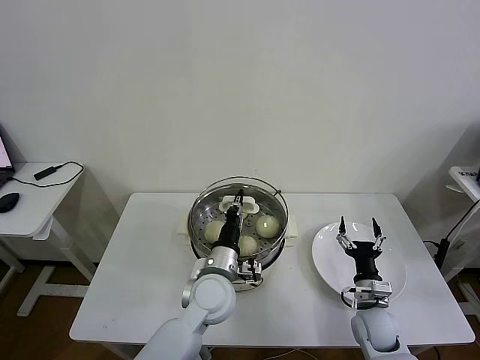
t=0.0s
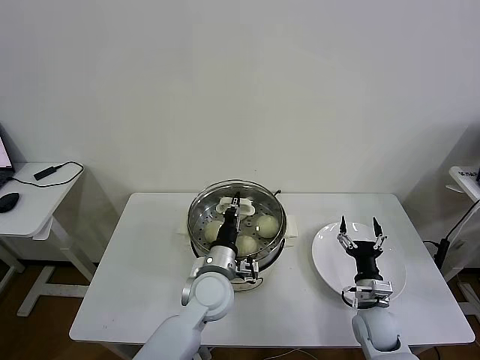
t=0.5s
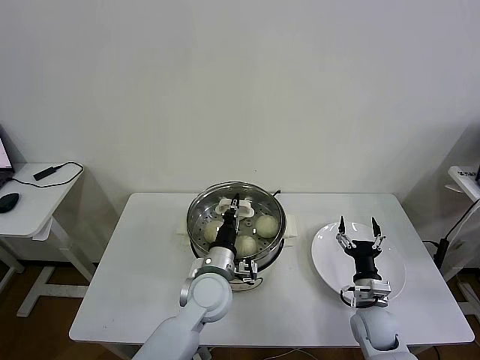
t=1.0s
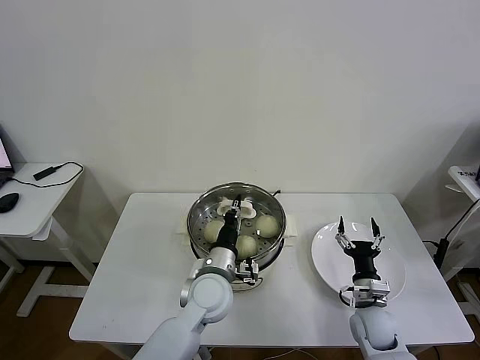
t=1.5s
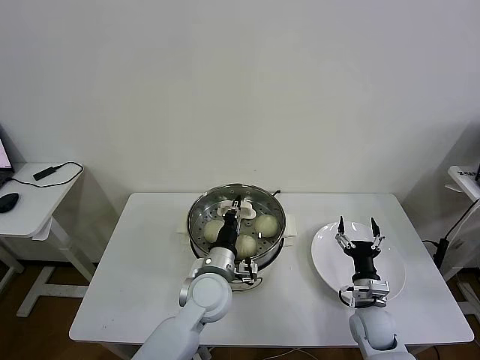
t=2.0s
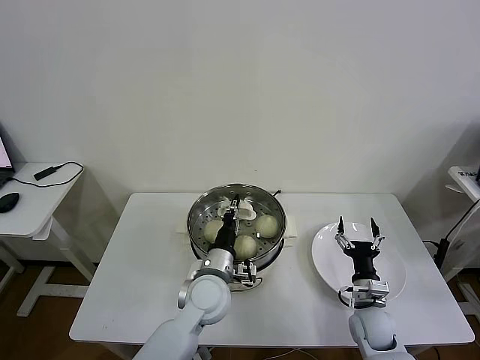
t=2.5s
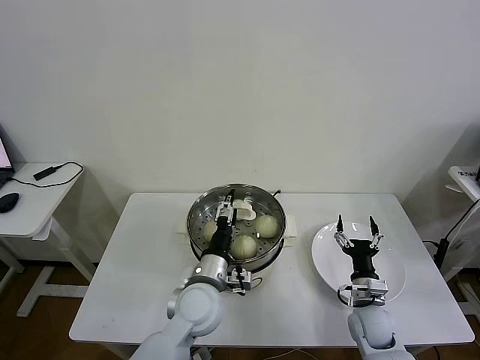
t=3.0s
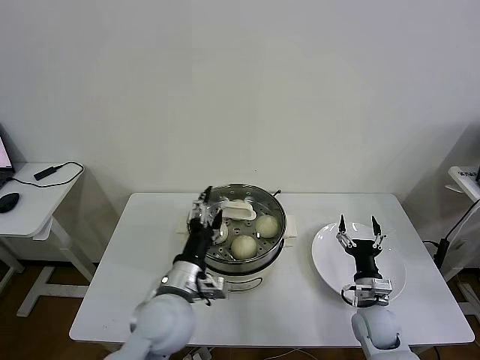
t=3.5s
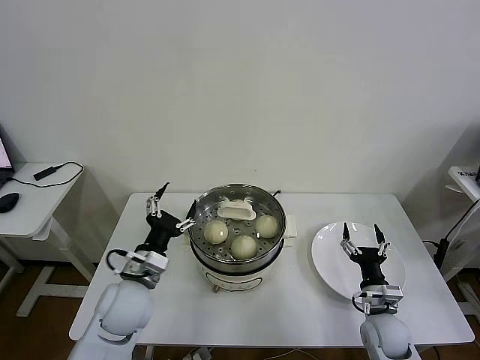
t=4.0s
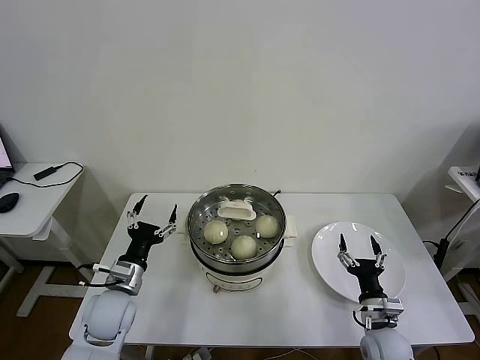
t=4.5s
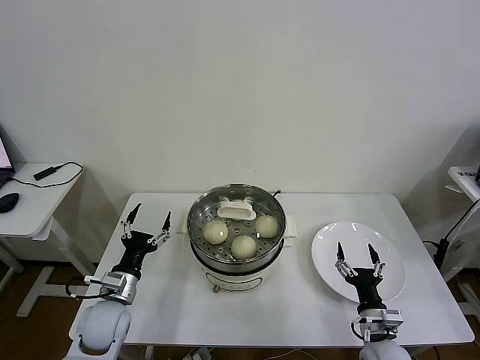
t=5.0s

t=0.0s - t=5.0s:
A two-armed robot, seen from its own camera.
Task of the whole recording: take steamed baozi put them in steamer then cover it.
Step, t=0.0s - t=2.5s: Place the pot lid on the steamer with left gripper.
t=0.0s - t=2.5s: The grippers move only a little.
t=2.5s - t=5.0s: The right gripper shifts approximately 5 cm backward. Meanwhile the left gripper shifts roughly 20 cm to the left, and opens.

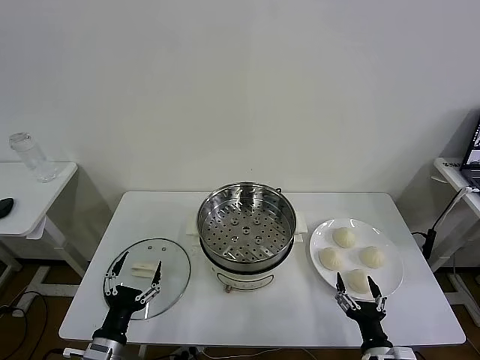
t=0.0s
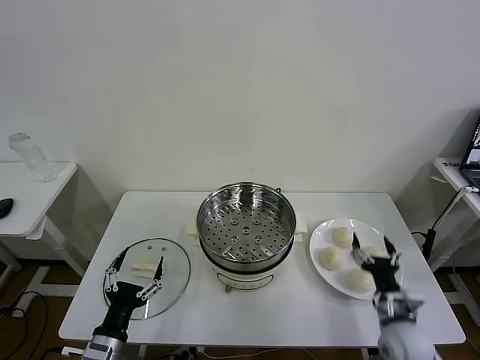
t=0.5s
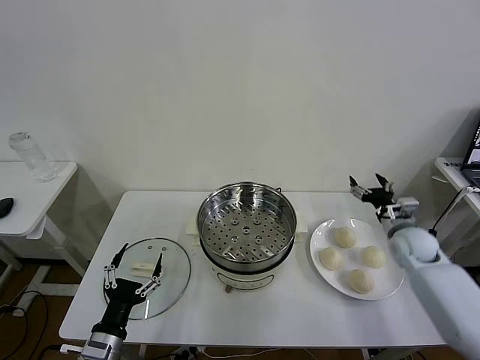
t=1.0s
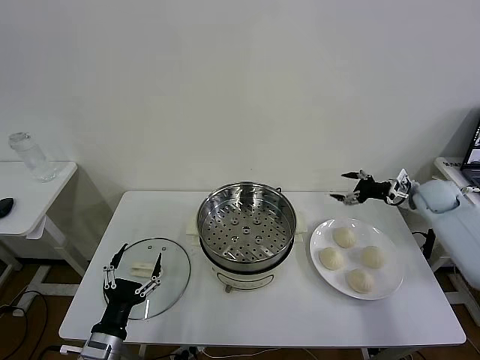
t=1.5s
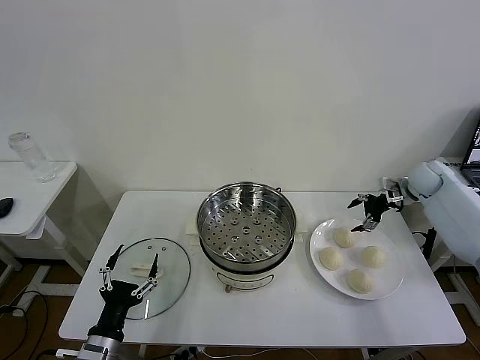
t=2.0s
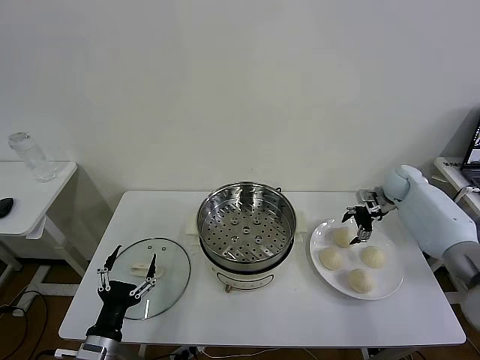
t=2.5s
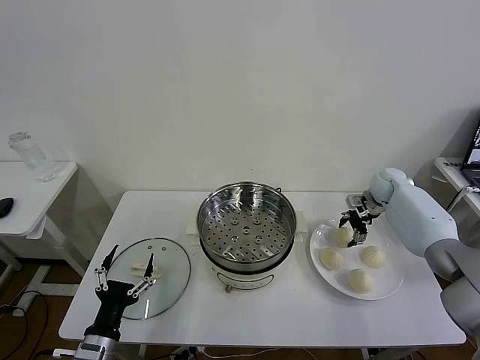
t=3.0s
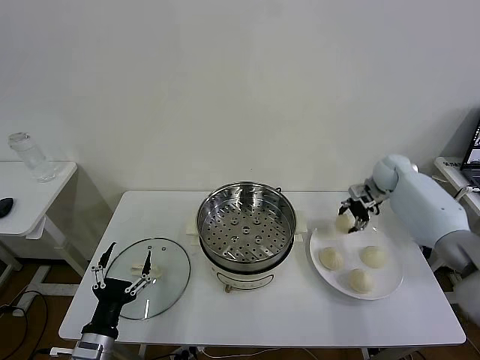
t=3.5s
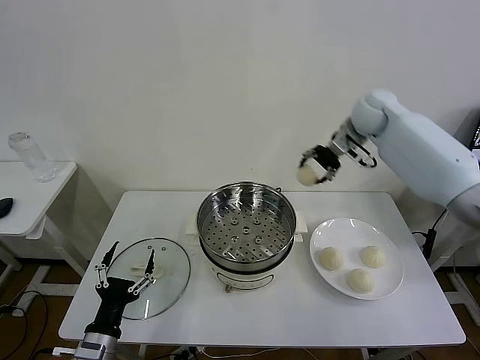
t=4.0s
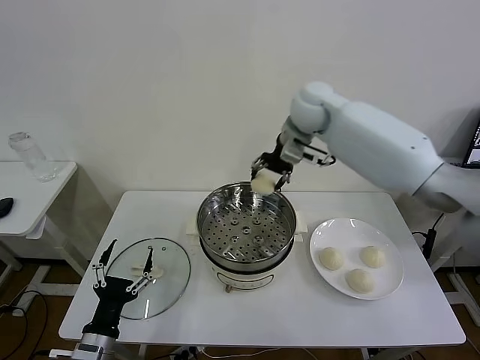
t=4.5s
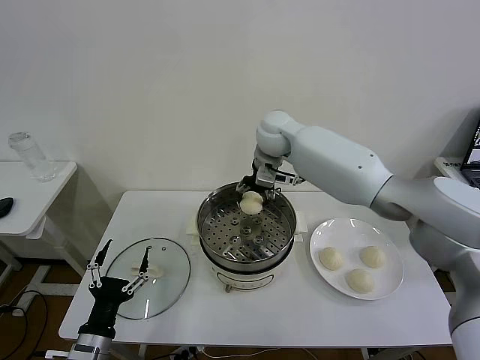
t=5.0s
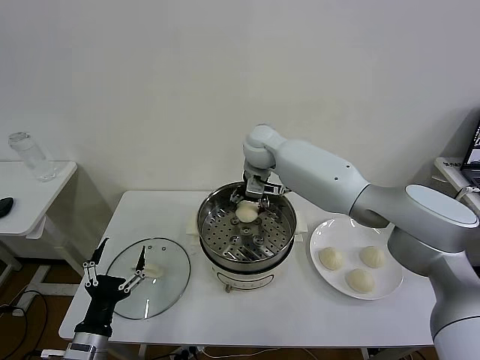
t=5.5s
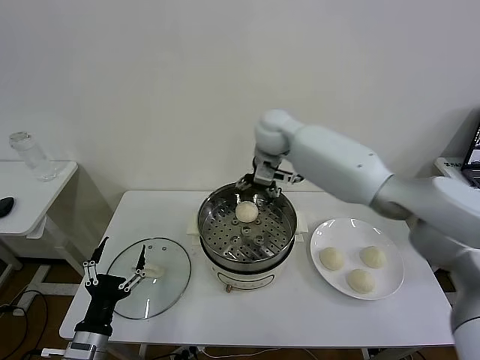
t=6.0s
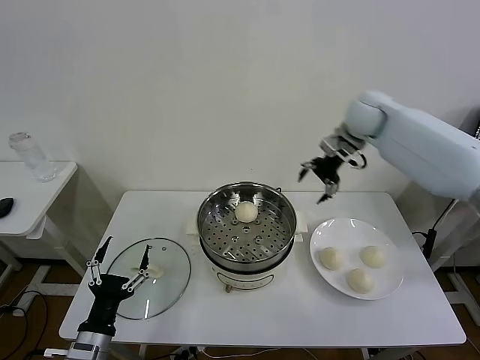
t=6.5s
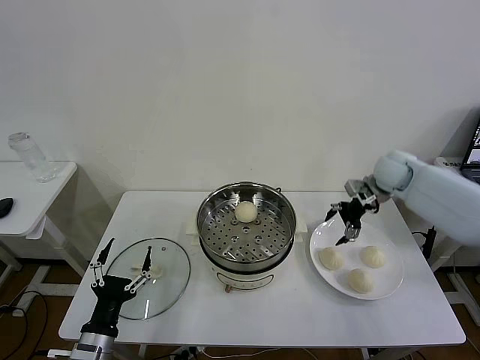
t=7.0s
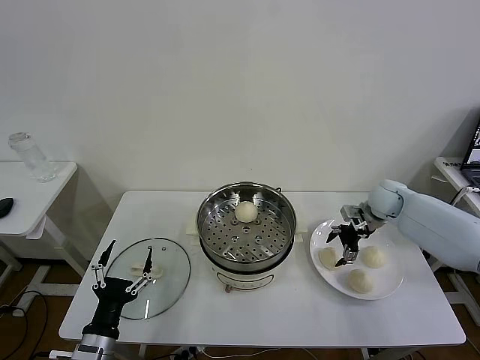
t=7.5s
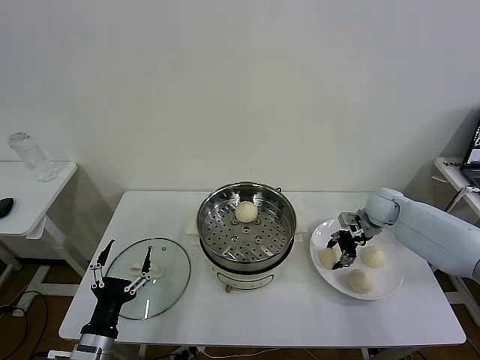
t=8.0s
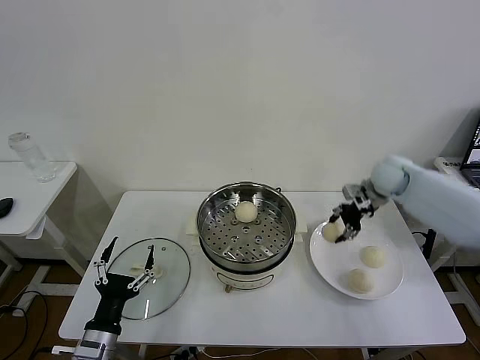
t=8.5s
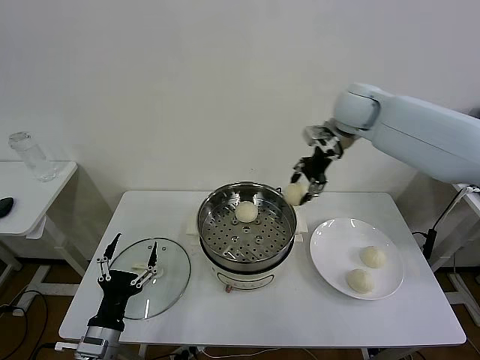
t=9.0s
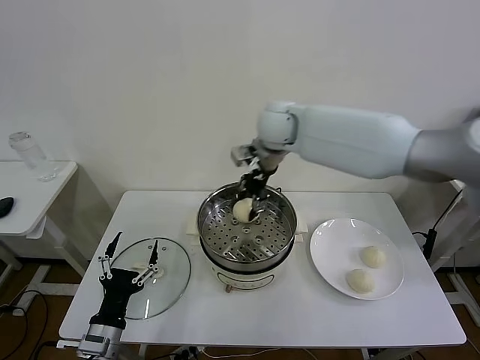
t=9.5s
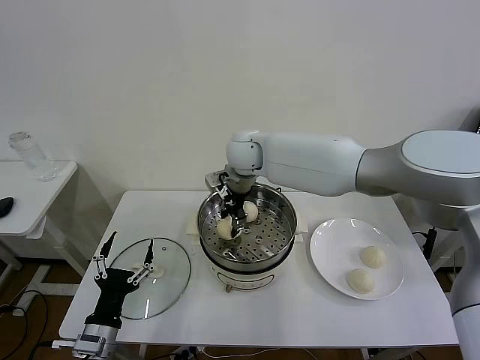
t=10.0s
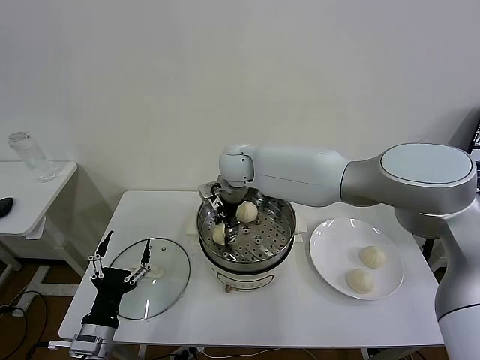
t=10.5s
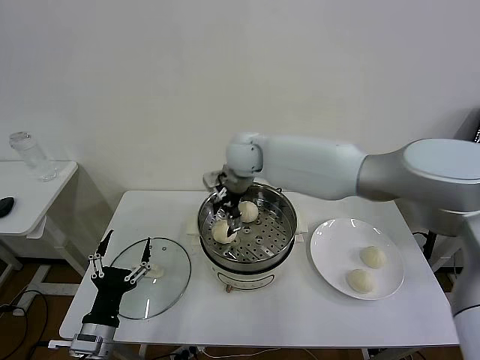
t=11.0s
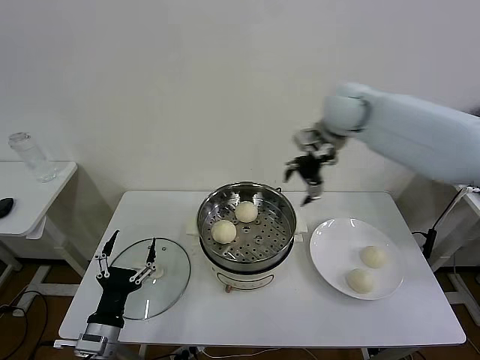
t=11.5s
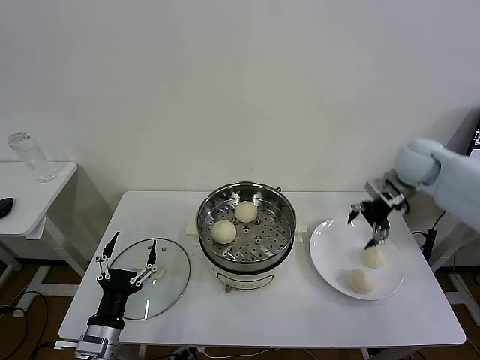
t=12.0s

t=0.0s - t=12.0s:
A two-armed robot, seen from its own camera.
Task of the whole recording: take steamed baozi put them in steamer then cover it.
Step, t=0.0s - t=3.0s: Grasp the baozi in the plate with right gripper.
Step, t=3.5s - t=5.5s: Place the baozi on the steamer with right gripper.
Step, t=6.0s - t=8.0s: Grasp the baozi in the plate with right gripper.
Step, t=8.5s - t=10.5s: Place the baozi on the steamer with right gripper.
t=2.0s - t=4.0s: The right gripper heads to the left and upward, covering roughly 30 cm, and closes up.
t=4.0s - t=6.0s: The right gripper goes some 15 cm to the left, and opens.
t=6.0s - t=8.0s: The right gripper shifts some 35 cm to the right and downward, and closes up.
t=8.0s - t=10.0s: The right gripper goes approximately 40 cm to the left and upward.
t=10.0s - t=12.0s: The right gripper heads to the right, covering approximately 40 cm, and opens up.

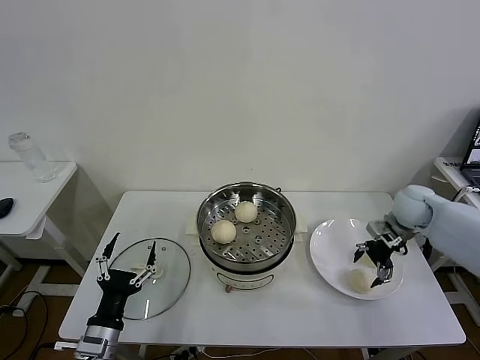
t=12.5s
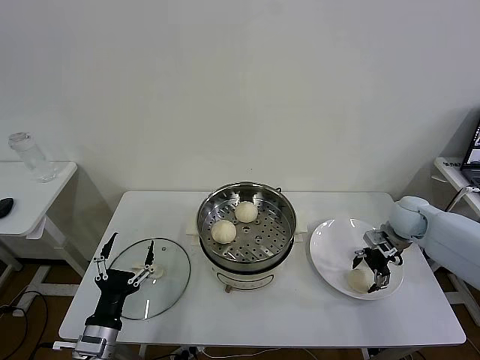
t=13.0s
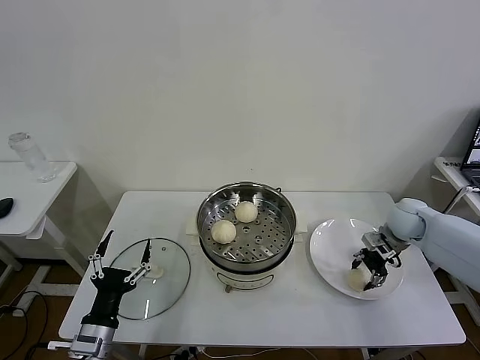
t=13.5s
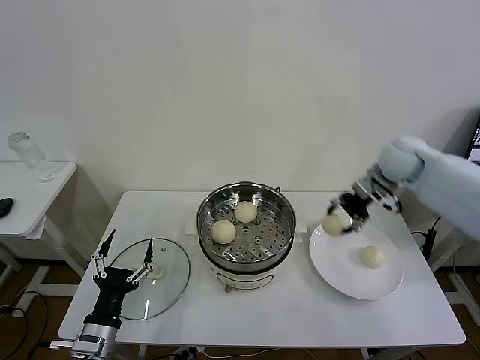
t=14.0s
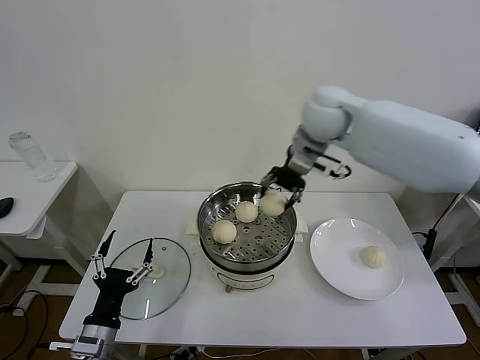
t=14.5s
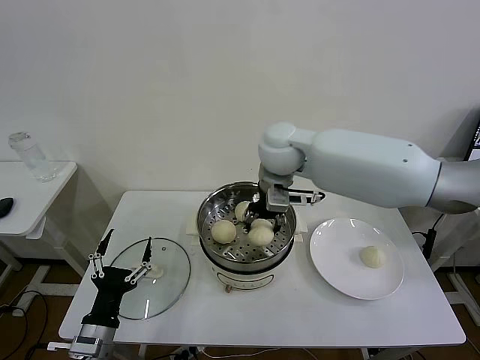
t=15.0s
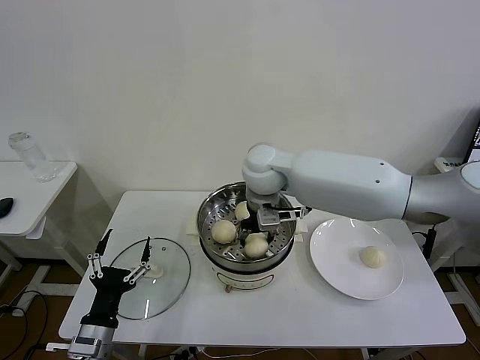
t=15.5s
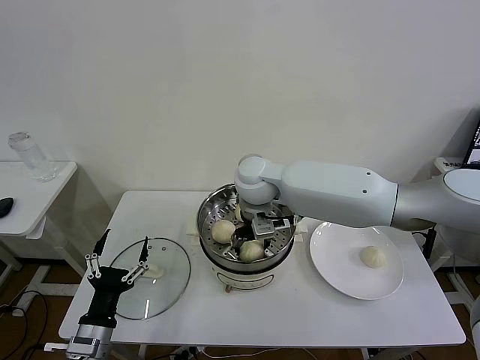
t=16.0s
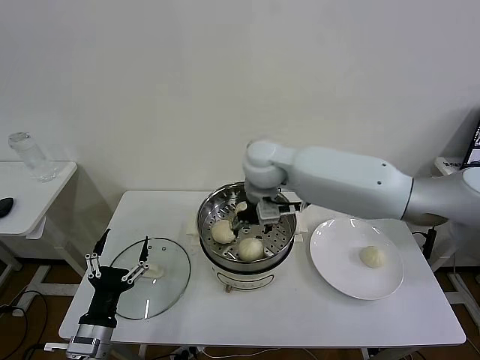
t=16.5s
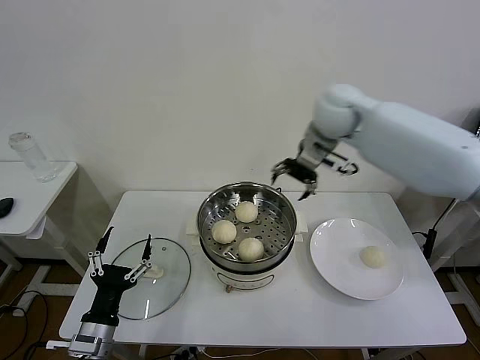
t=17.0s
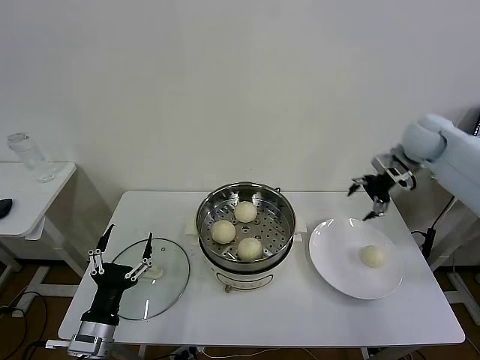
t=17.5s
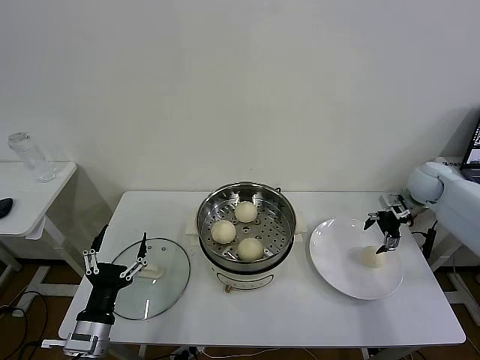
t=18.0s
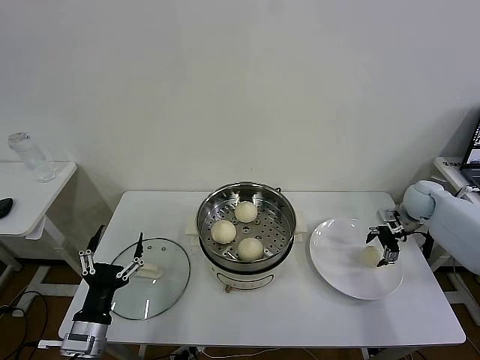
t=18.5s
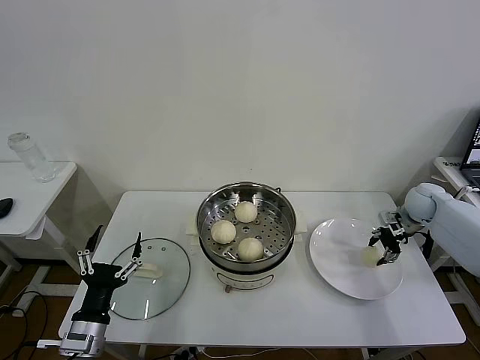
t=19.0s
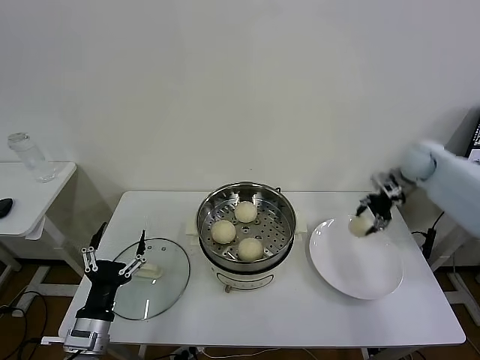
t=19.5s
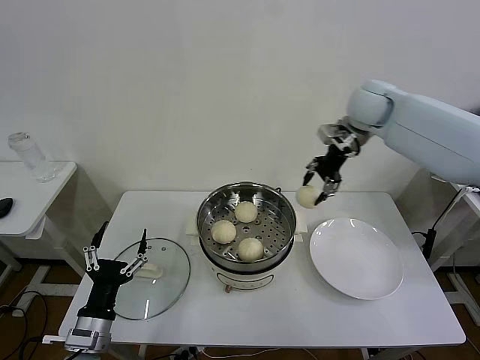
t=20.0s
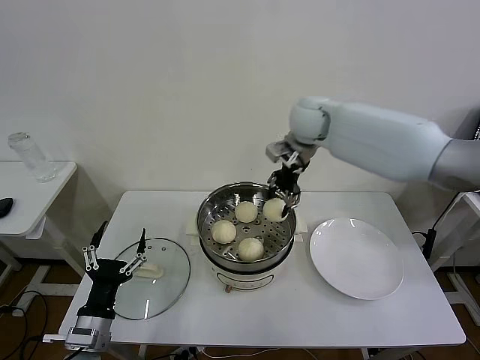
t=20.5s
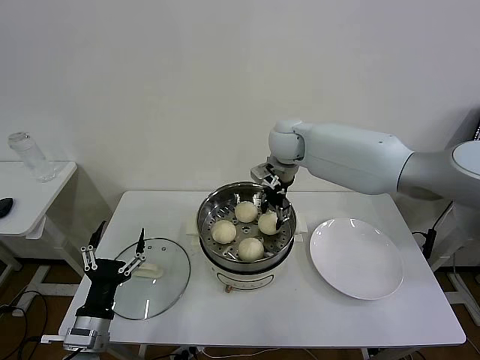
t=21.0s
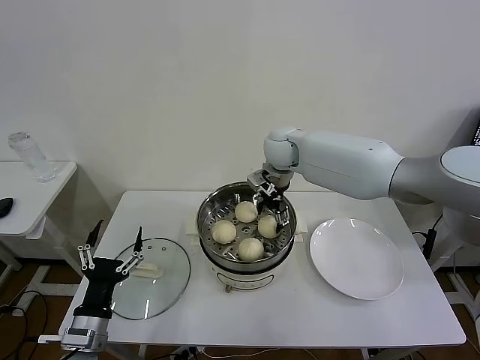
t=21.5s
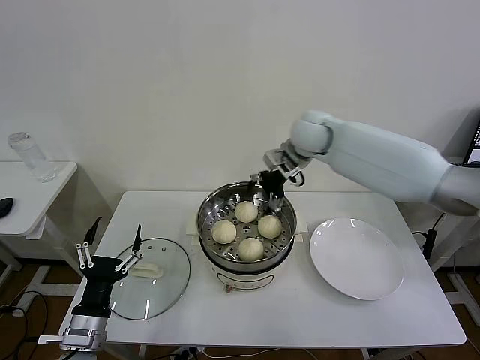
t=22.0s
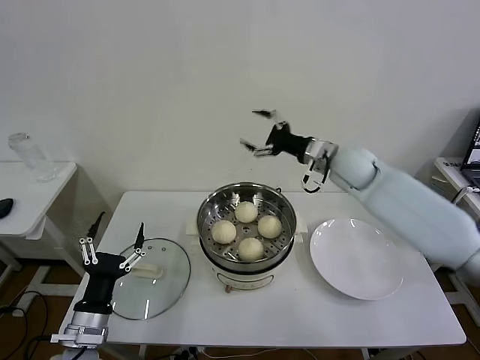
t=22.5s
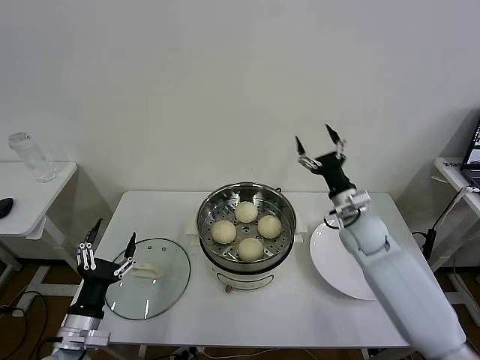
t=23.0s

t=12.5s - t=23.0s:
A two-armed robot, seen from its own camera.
Task of the whole recording: take steamed baozi put them in steamer then cover it.
Step, t=14.0s - t=16.5s: Place the baozi on the steamer with right gripper.
Step, t=17.0s - t=18.5s: Grasp the baozi in the plate with right gripper.
Step, t=19.0s - t=22.0s: Place the baozi on the steamer with right gripper.
t=12.5s - t=14.5s: The right gripper heads to the left and upward, covering about 35 cm, and closes up.
t=14.5s - t=16.5s: The right gripper travels to the left and downward by approximately 10 cm, and opens.
t=16.5s - t=19.0s: The right gripper shifts about 40 cm to the right, and closes.
t=19.0s - t=21.0s: The right gripper heads to the left and upward, covering roughly 40 cm.
t=21.0s - t=23.0s: The right gripper shifts approximately 30 cm to the right, downward and backward, and opens.
